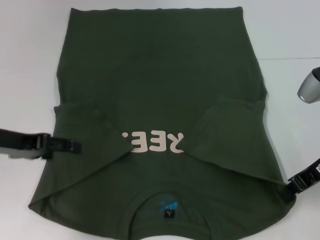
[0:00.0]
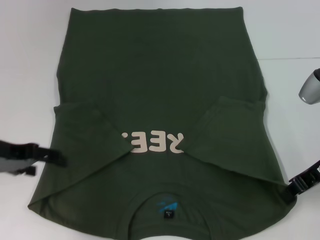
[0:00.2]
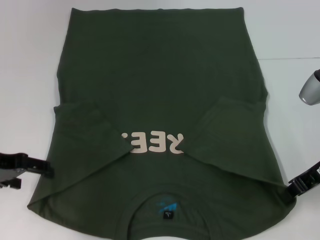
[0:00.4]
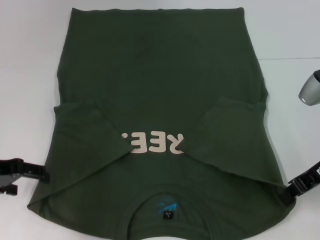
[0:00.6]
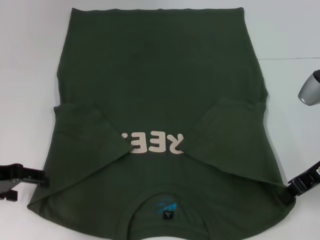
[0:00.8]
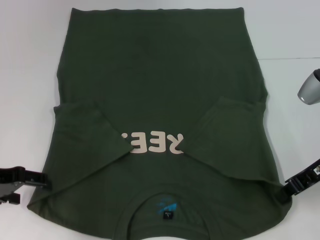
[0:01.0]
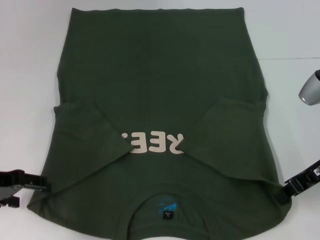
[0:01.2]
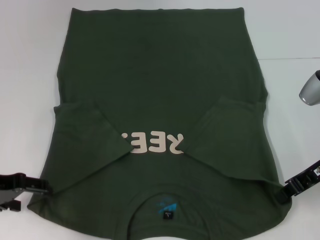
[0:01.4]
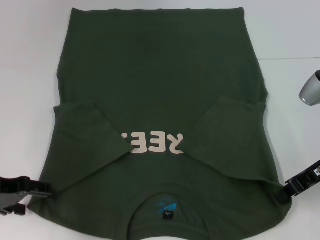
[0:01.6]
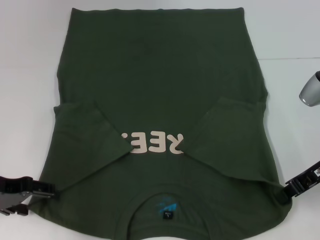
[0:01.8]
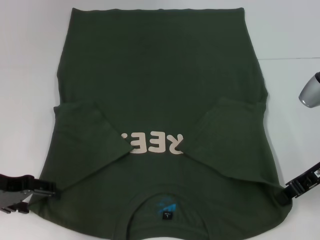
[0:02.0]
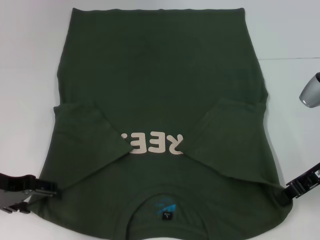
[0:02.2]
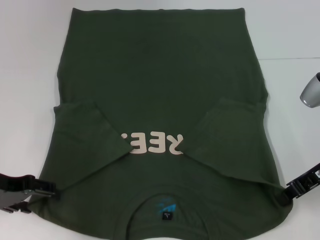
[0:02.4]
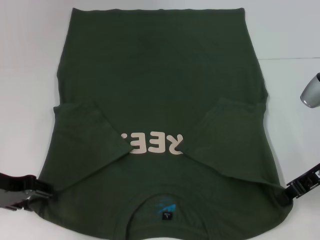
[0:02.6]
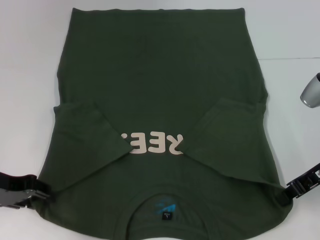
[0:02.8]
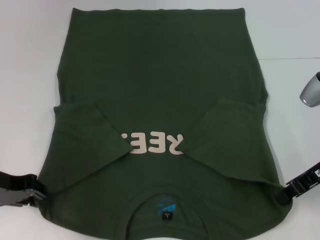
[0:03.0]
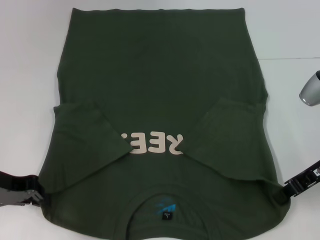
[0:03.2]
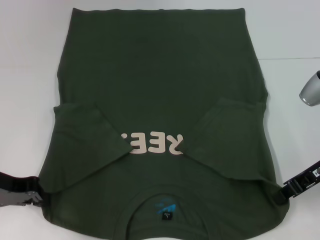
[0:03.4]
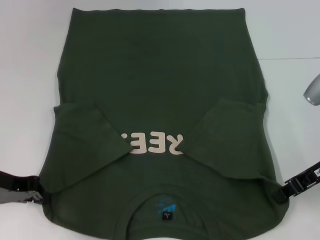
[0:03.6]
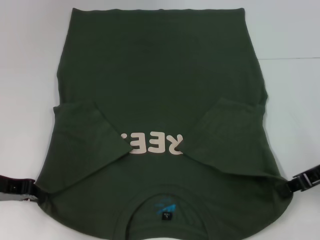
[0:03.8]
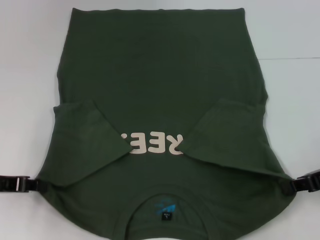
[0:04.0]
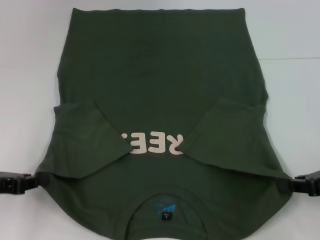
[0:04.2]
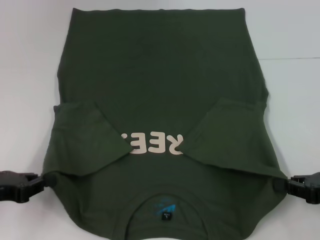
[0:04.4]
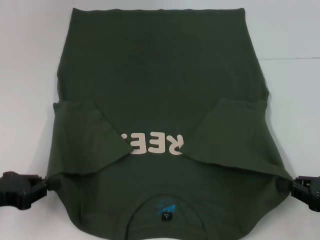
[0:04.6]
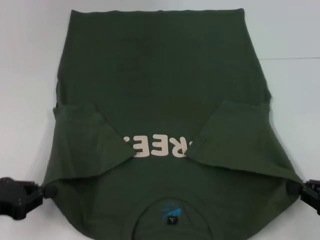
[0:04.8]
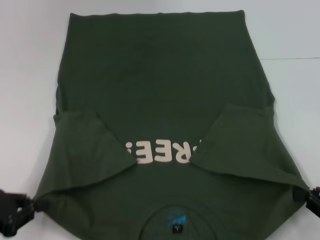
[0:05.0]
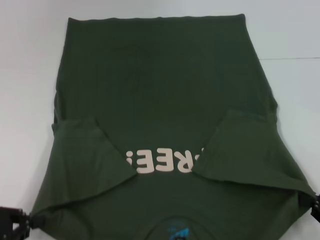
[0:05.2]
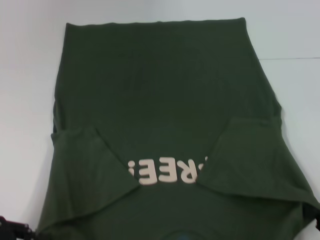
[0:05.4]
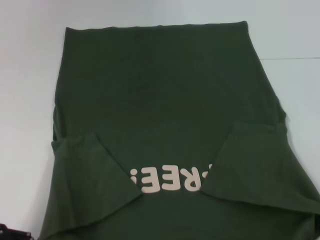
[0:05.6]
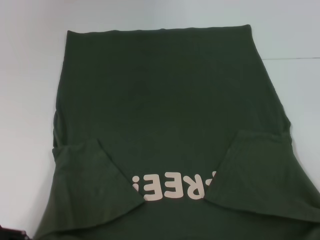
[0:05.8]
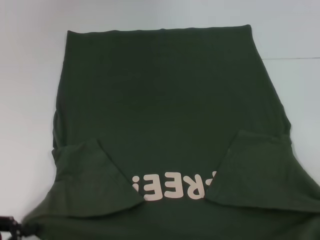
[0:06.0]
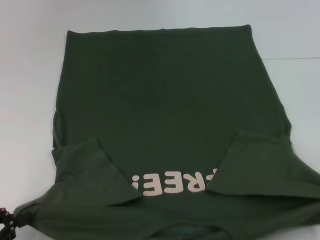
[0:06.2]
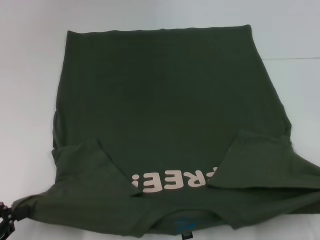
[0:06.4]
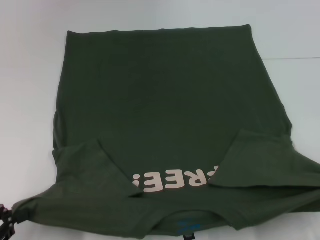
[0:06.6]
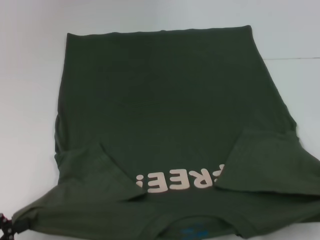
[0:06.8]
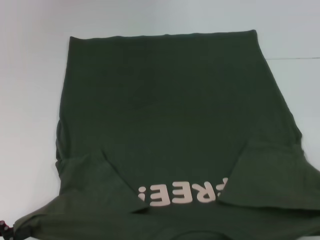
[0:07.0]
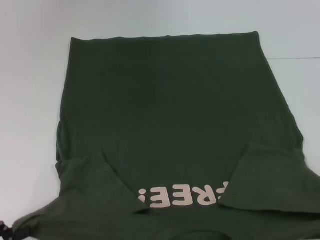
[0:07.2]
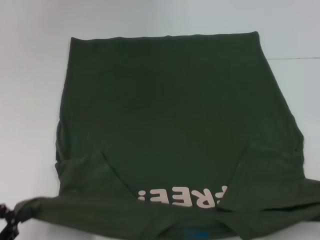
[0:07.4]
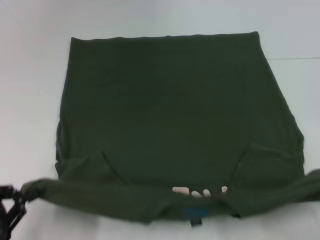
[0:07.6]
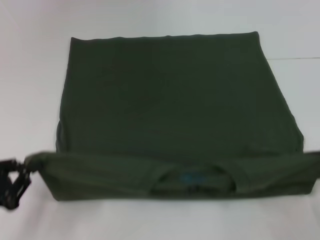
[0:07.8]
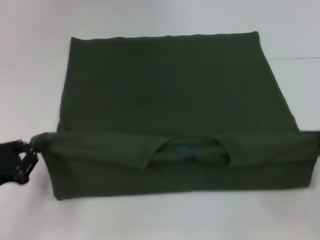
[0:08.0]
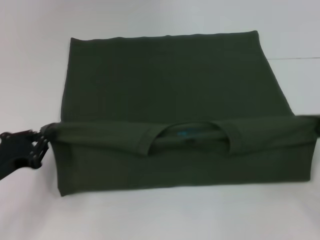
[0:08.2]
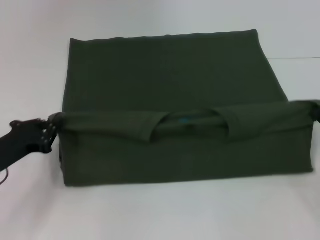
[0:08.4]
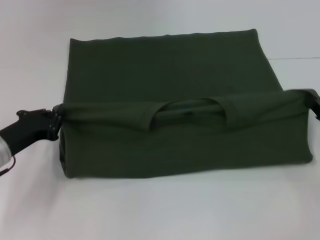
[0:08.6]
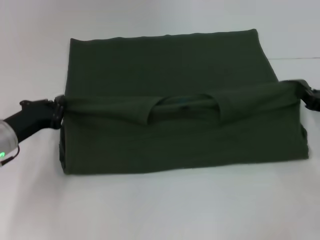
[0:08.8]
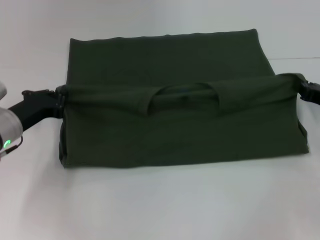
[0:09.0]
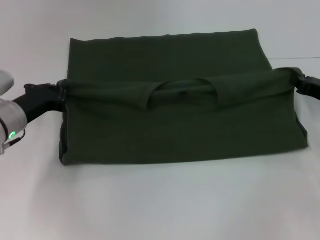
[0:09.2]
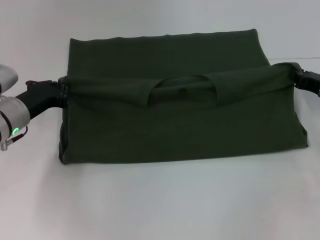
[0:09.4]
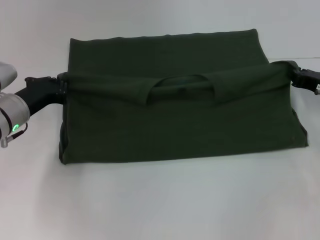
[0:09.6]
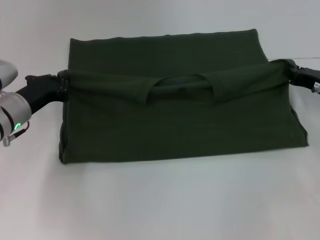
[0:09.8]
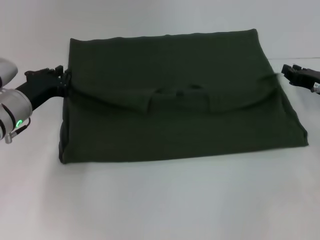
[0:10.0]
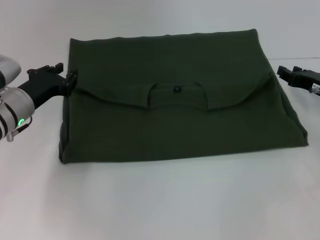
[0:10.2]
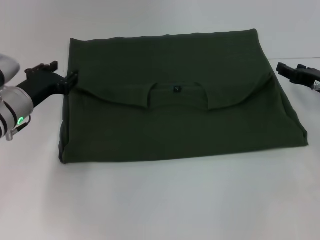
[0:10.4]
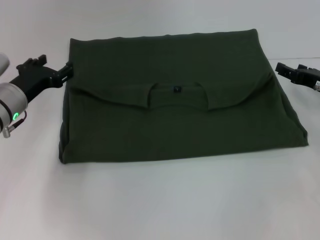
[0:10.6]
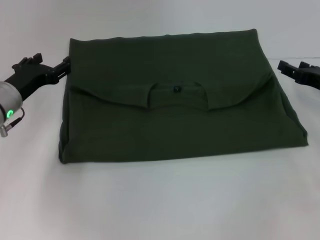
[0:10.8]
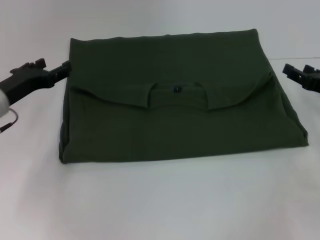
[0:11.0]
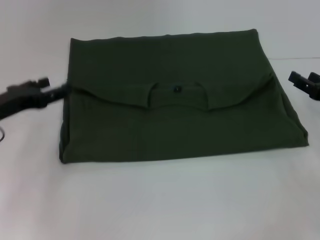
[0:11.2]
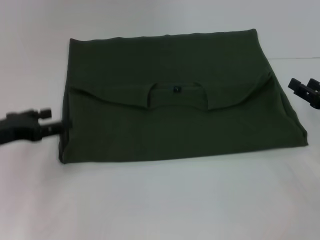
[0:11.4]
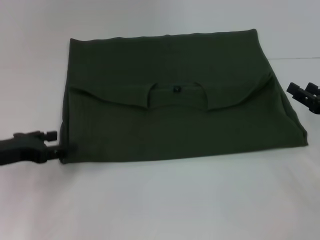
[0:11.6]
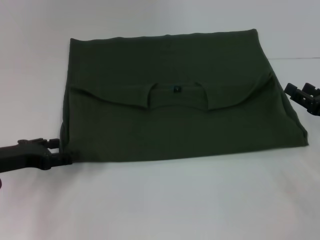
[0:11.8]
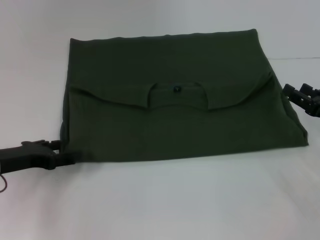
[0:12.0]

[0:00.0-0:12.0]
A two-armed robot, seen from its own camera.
Step, 0:00.0 to 0:03.4: Grab the bottom left corner with your left hand.
Step, 0:03.6 to 0:10.4: Fold the clothes with your left hand.
Step, 0:03.6 to 0:10.4: Fold the clothes with your right hand.
0:01.6 to 0:03.0: The left gripper closes up.
0:03.0 to 0:04.4: The left gripper moves some 5 cm, and closes its fingers; the right gripper moves backward, to the right and downward, roughly 10 cm.
0:04.4 to 0:06.0: The right gripper heads backward, covering about 15 cm; the left gripper is displaced backward by approximately 10 cm.
0:06.0 to 0:07.6: There are only small adjustments of the grippers.
0:07.6 to 0:09.0: The two grippers go approximately 20 cm forward.
0:09.0 to 0:10.4: The left gripper opens.
0:10.4 to 0:12.0: The grippers both shift backward by roughly 10 cm. The right gripper opens up; the left gripper opens up.

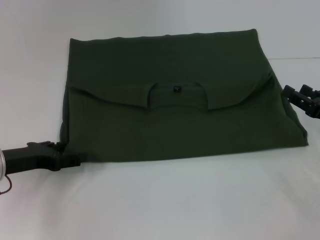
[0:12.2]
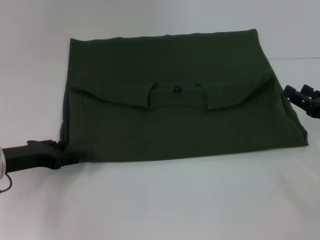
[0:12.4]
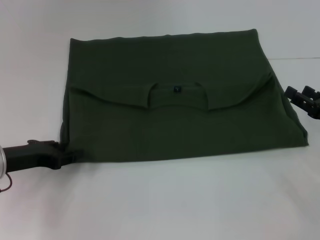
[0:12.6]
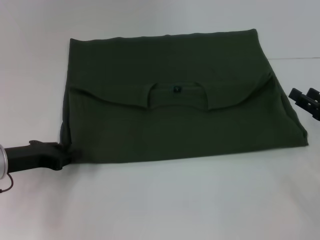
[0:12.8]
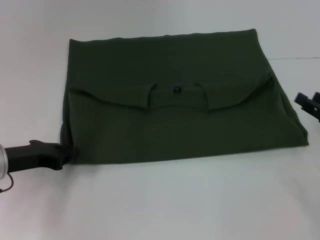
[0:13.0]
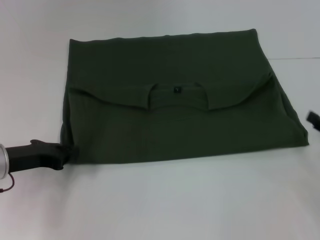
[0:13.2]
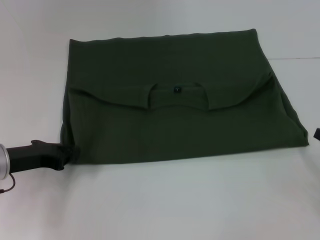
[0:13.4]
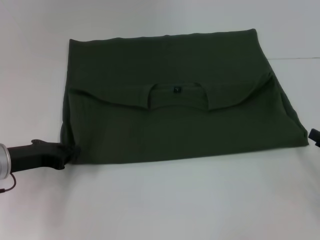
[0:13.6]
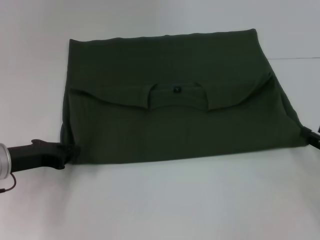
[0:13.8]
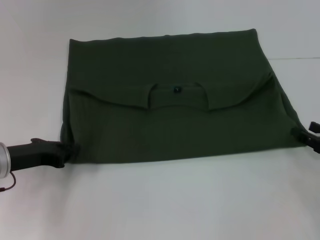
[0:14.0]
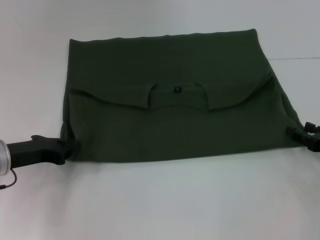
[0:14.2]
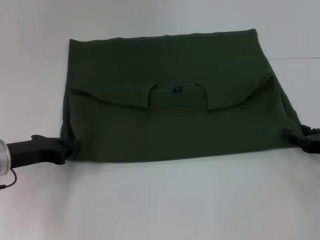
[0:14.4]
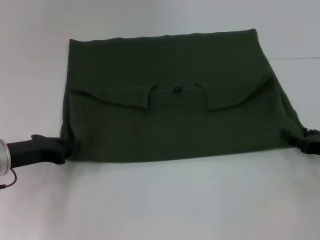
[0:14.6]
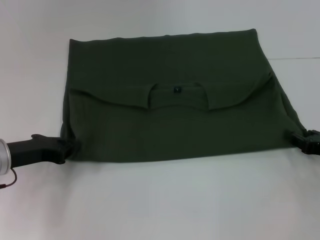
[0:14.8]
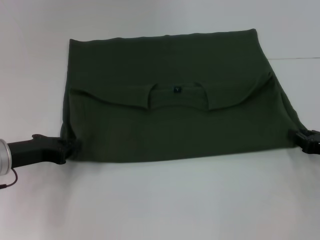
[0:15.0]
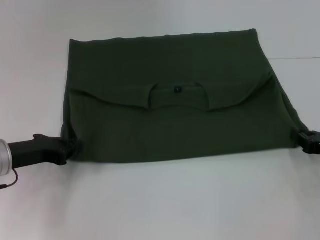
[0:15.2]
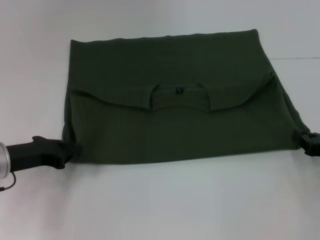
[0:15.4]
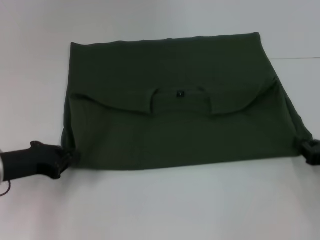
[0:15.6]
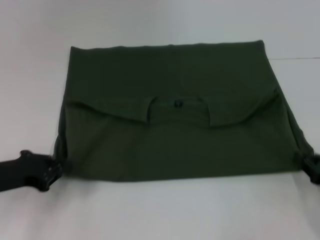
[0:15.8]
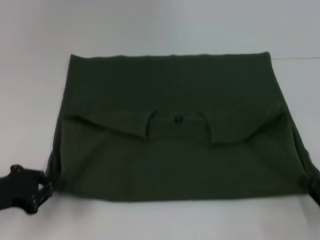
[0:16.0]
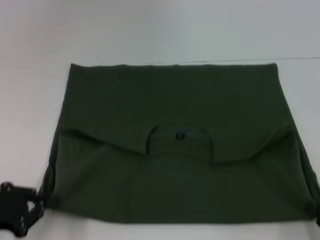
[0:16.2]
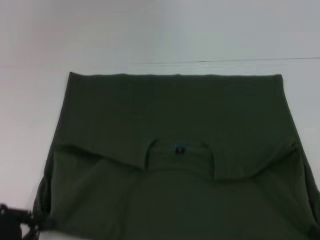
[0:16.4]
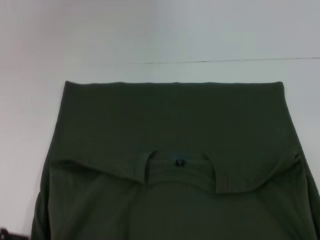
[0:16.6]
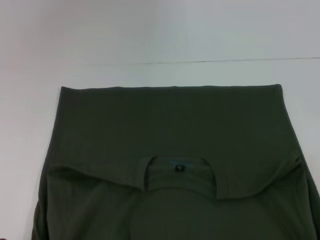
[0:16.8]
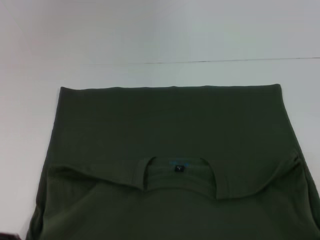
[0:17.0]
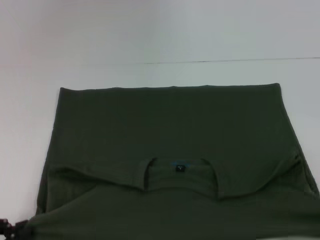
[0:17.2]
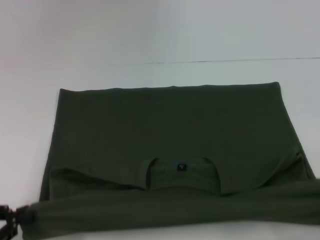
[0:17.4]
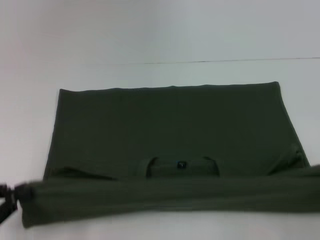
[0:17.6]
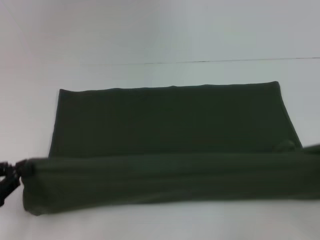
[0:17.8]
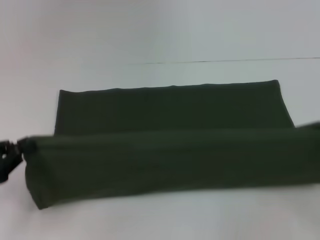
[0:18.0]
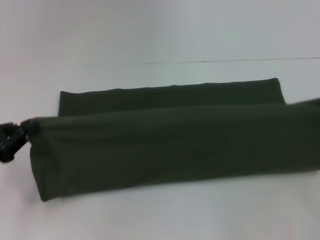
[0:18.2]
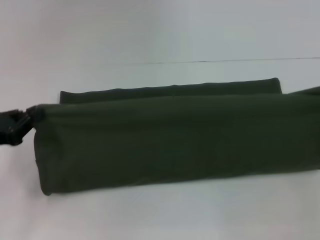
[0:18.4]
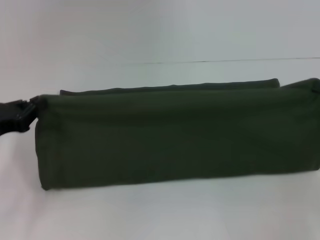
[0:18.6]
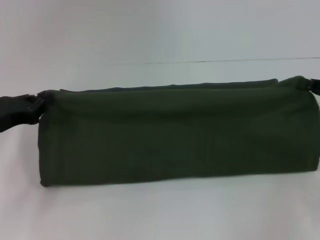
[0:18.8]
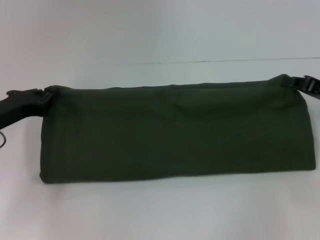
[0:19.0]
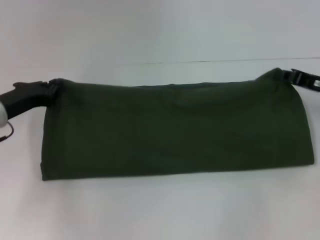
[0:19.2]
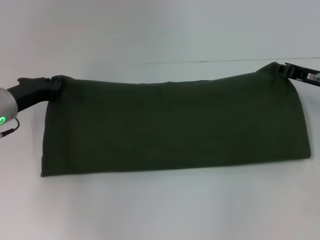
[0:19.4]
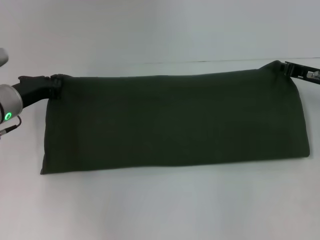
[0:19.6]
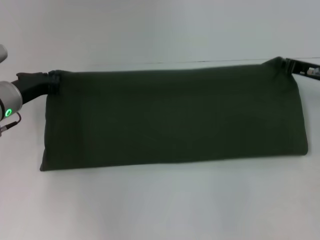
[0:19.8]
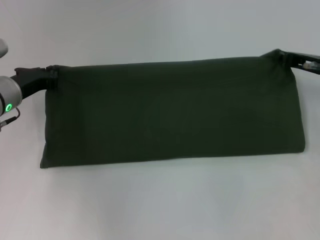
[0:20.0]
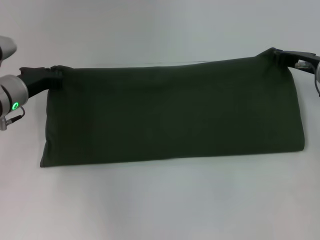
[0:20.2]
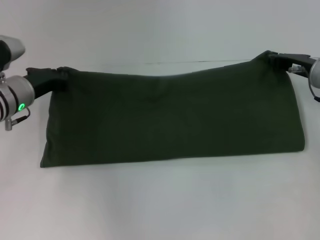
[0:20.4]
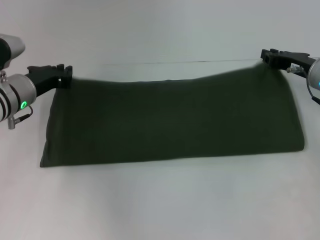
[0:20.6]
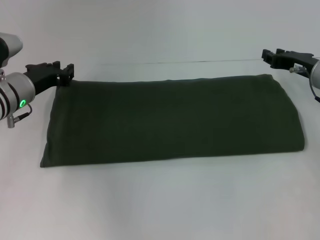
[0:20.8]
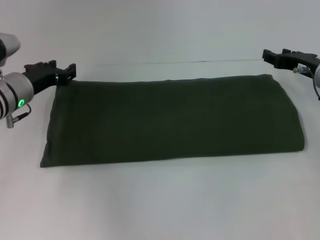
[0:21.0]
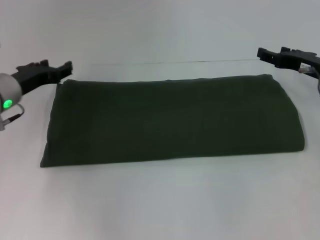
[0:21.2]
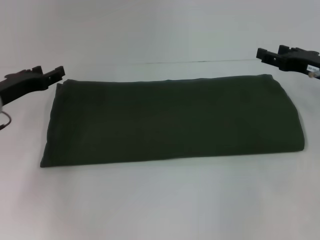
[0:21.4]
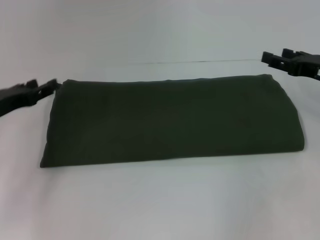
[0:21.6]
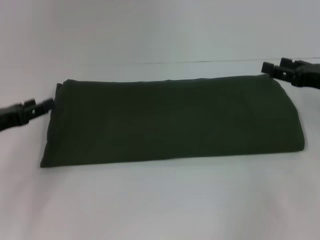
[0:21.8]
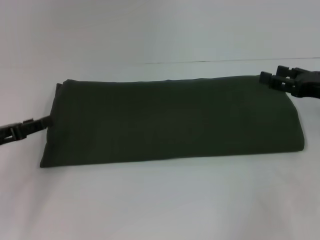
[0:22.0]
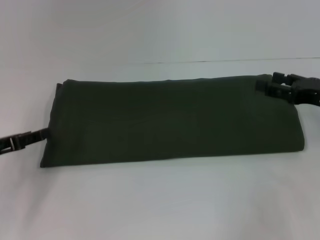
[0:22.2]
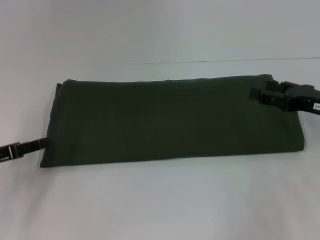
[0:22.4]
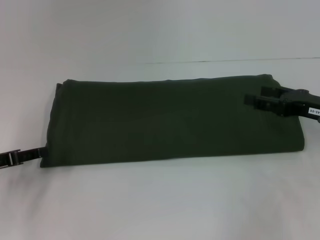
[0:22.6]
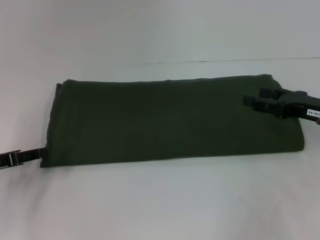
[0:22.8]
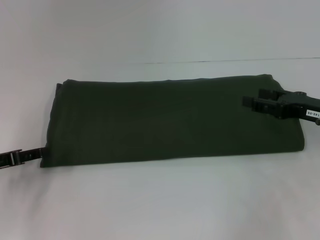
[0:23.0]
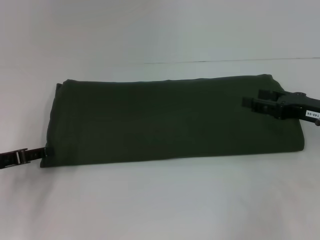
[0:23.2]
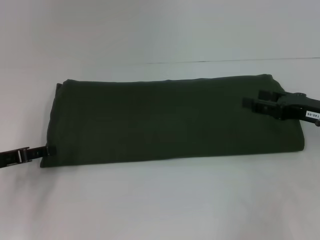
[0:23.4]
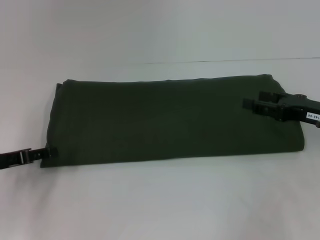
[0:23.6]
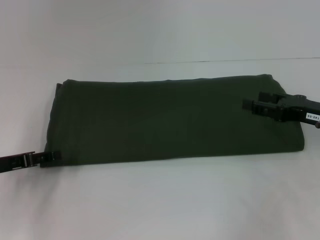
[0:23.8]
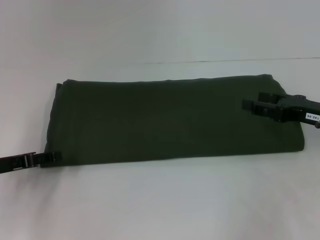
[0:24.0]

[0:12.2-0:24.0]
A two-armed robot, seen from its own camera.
Step, 0:12.2 to 0:16.8: Pull the clothes with your left hand.
Step, 0:12.2 to 0:16.8: Pull the clothes with your right hand.
Step, 0:17.0 to 0:20.8: Fold the clothes with your left hand.
Step, 0:17.0 to 0:20.8: Fold the clothes with your right hand.
0:12.2 to 0:13.6: The right gripper goes some 5 cm backward; the left gripper closes its fingers.
0:13.6 to 0:15.2: The right gripper ends up approximately 5 cm from where it was, and closes its fingers.
0:15.2 to 0:16.6: The two grippers go roughly 20 cm backward.
0:16.6 to 0:18.2: The right gripper travels forward and upward by approximately 25 cm, while the left gripper is displaced forward by approximately 10 cm.
0:18.2 to 0:19.6: The left gripper moves forward and to the right, approximately 15 cm. The right gripper shifts about 15 cm forward and to the left.
0:19.6 to 0:21.0: The right gripper opens up. Meanwhile the left gripper opens.
0:21.0 to 0:22.6: The right gripper moves backward, roughly 10 cm, and opens; the left gripper shifts about 15 cm backward and to the left.
0:22.6 to 0:24.0: The grippers make only small movements.
